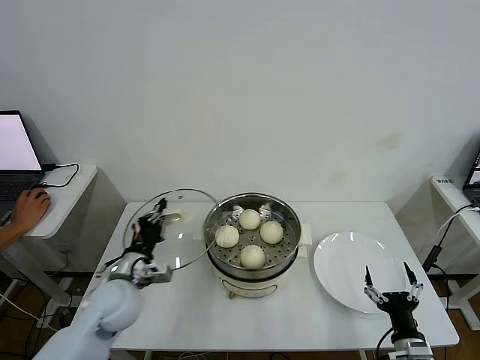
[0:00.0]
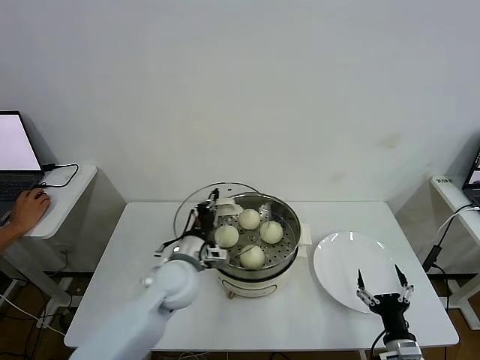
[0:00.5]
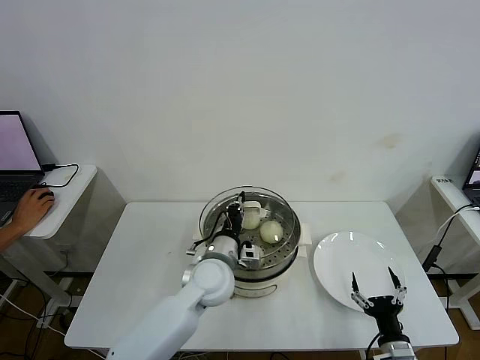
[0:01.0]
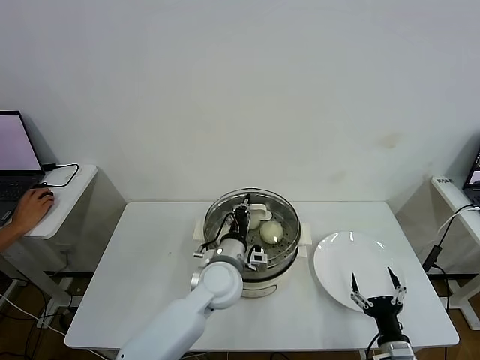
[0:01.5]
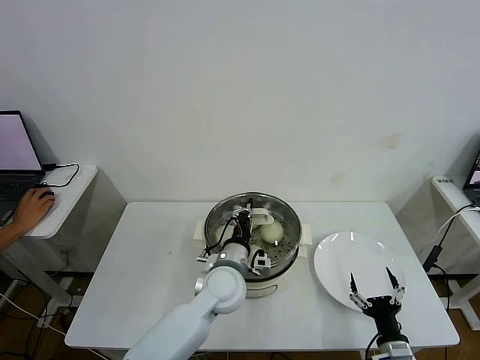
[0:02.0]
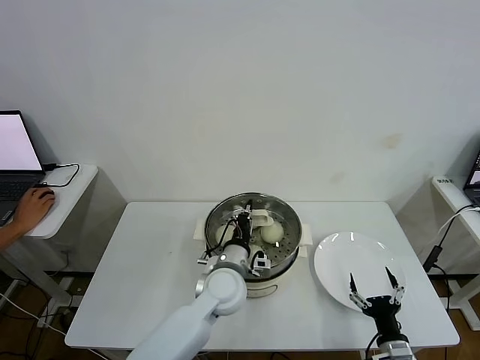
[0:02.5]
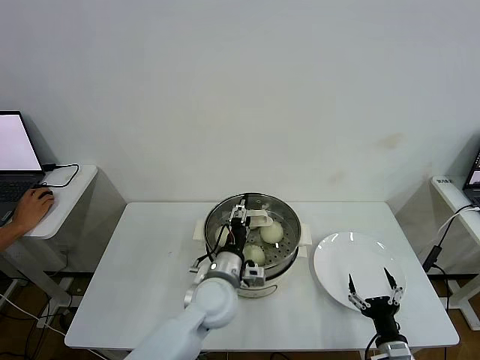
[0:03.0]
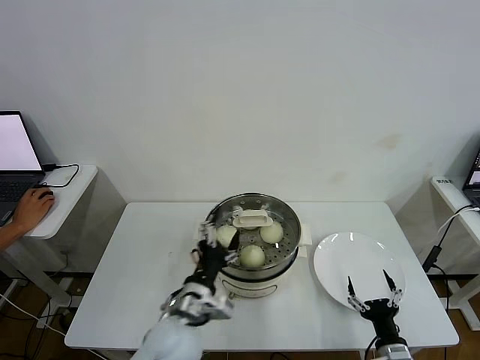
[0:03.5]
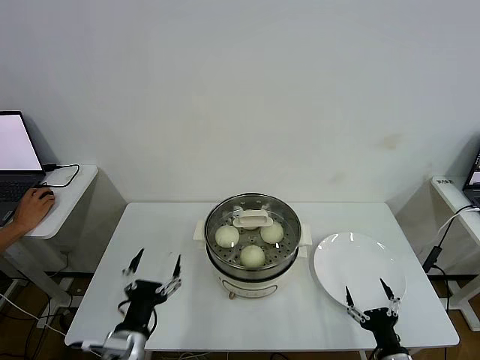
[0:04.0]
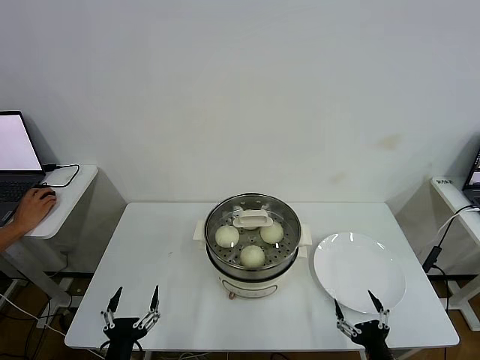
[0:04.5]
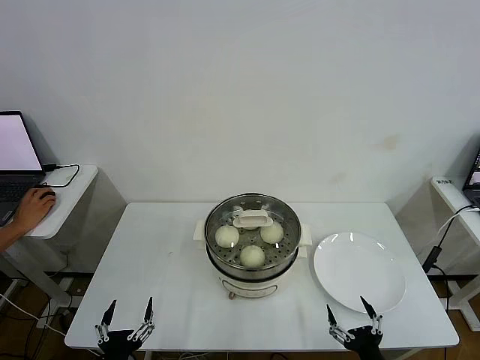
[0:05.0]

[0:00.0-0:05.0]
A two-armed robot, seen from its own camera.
Step, 0:00.0 to 0:03.0: Place the pot lid on the steamer with left gripper.
0:00.0 to 0:02.5: The left gripper travels to the right by roughly 20 cm.
0:02.5 to 0:05.0: The left gripper heads backward and to the left, covering approximately 35 cm, and opens, while the right gripper travels backward by about 5 cm.
